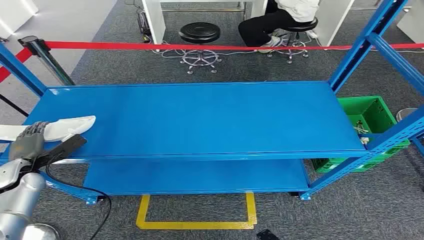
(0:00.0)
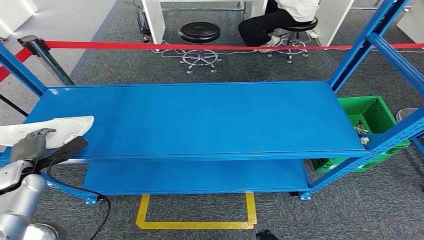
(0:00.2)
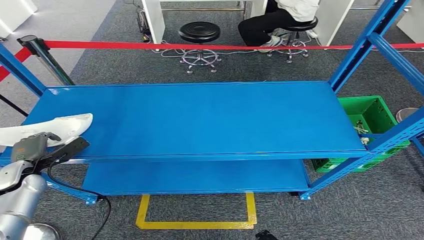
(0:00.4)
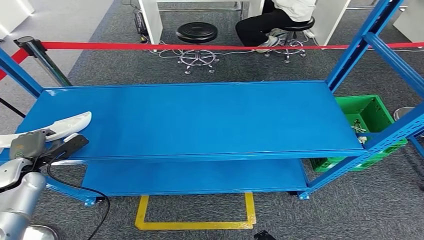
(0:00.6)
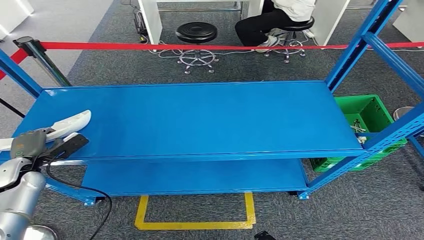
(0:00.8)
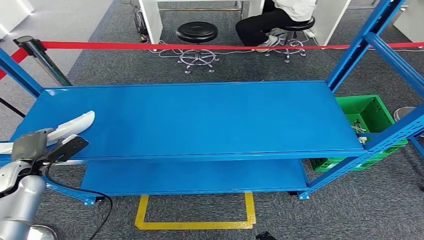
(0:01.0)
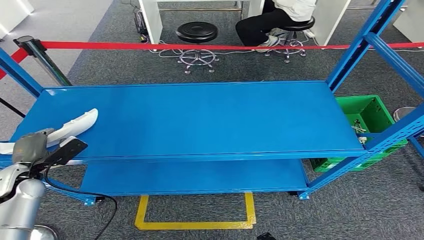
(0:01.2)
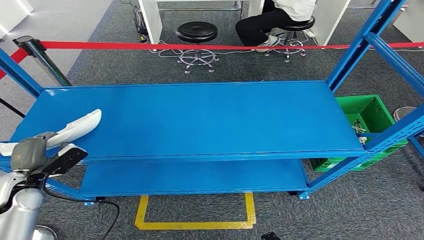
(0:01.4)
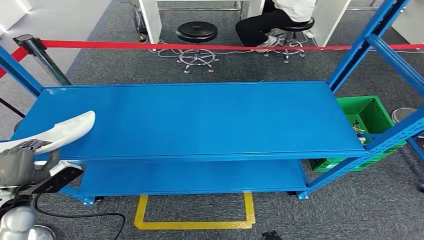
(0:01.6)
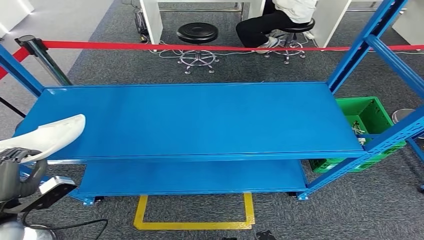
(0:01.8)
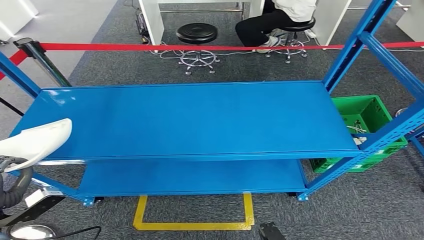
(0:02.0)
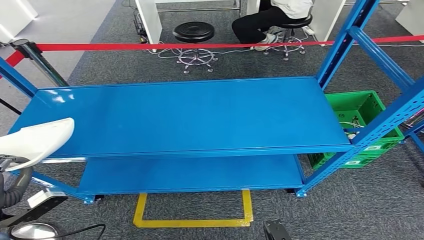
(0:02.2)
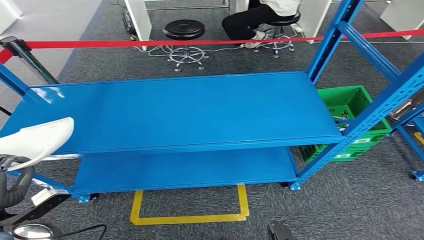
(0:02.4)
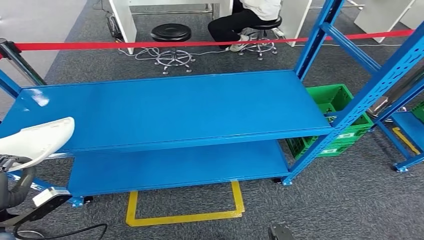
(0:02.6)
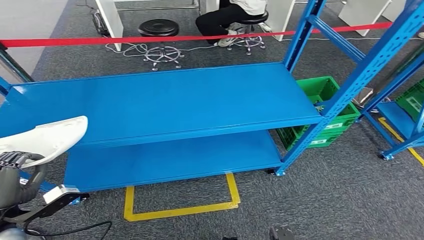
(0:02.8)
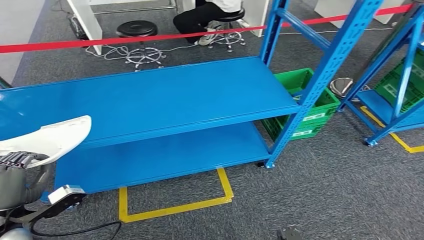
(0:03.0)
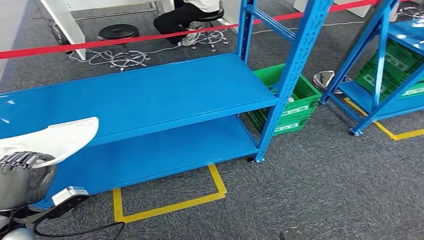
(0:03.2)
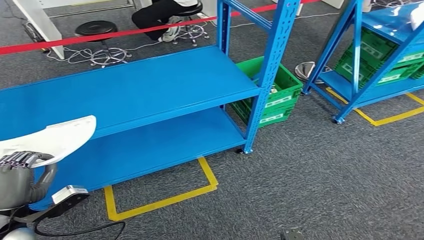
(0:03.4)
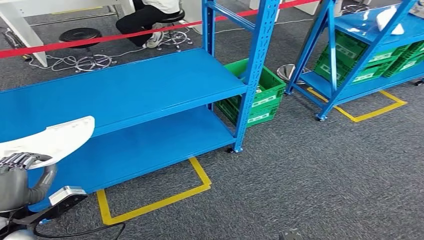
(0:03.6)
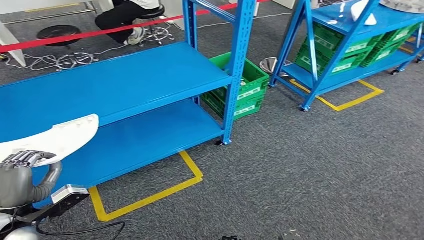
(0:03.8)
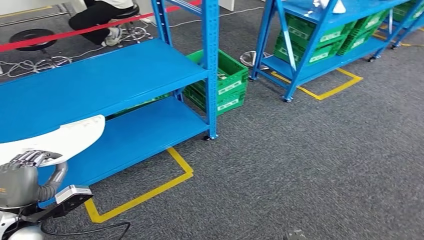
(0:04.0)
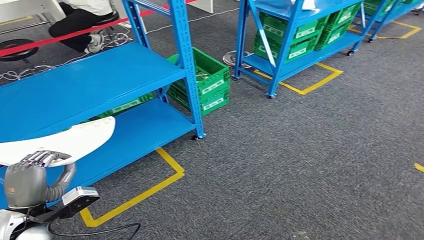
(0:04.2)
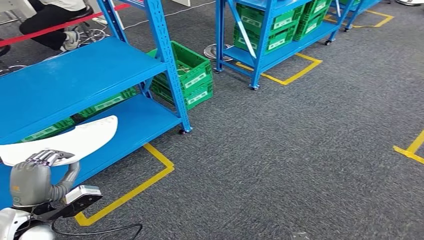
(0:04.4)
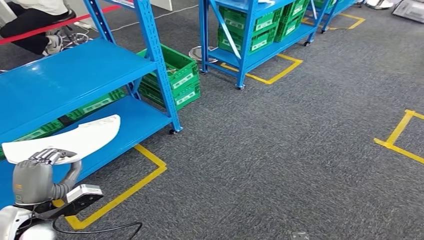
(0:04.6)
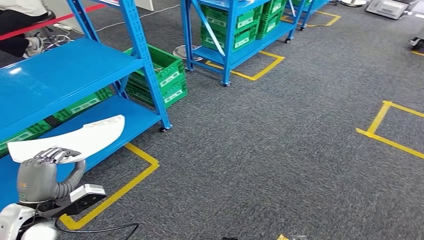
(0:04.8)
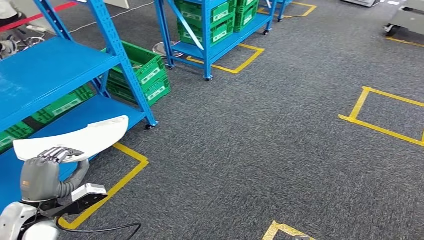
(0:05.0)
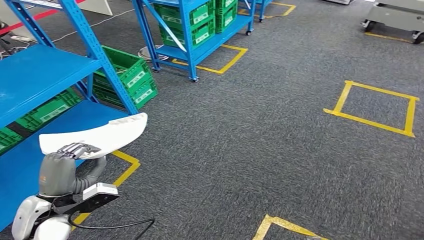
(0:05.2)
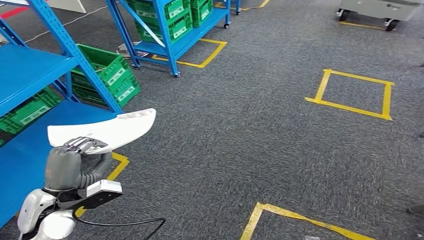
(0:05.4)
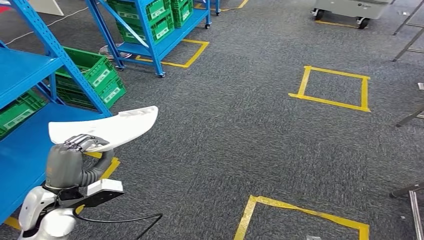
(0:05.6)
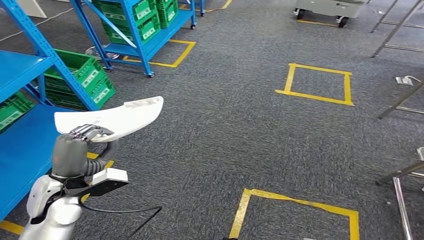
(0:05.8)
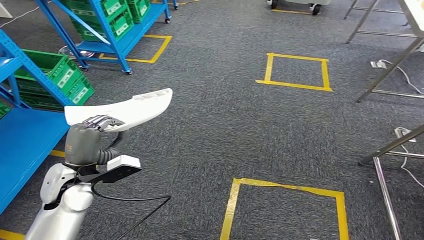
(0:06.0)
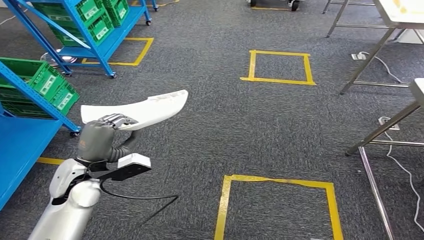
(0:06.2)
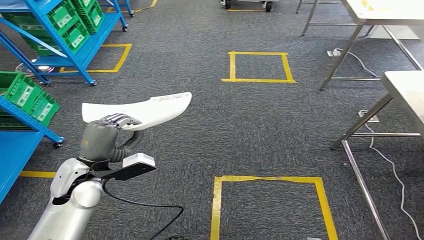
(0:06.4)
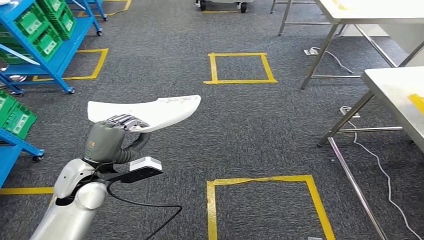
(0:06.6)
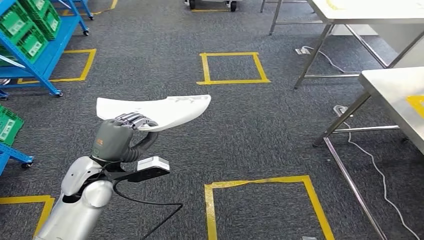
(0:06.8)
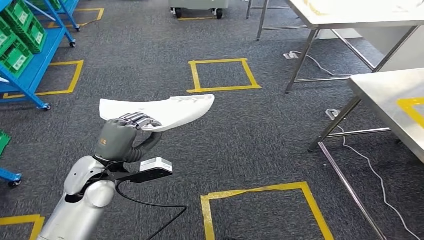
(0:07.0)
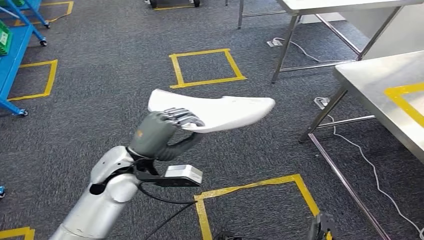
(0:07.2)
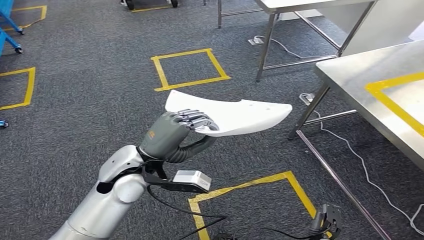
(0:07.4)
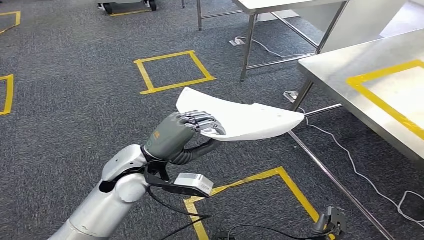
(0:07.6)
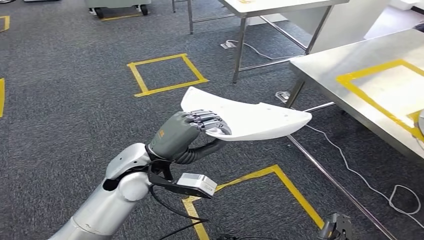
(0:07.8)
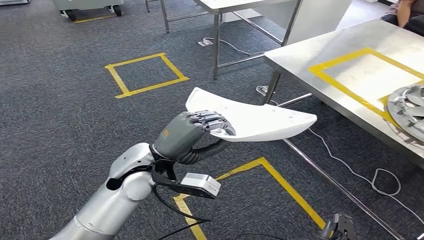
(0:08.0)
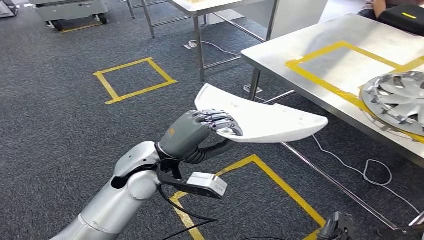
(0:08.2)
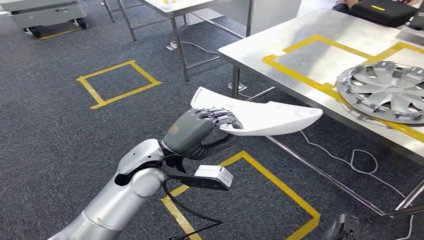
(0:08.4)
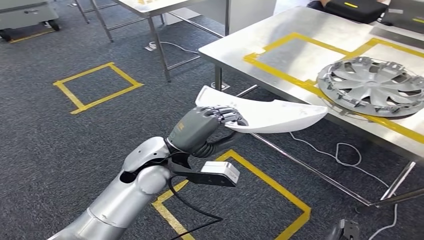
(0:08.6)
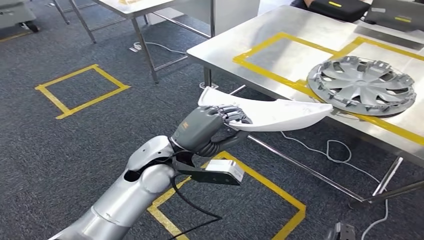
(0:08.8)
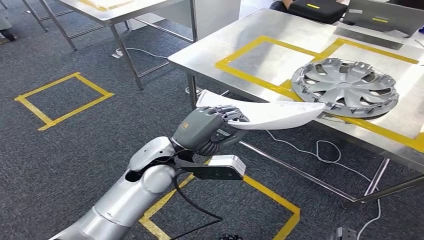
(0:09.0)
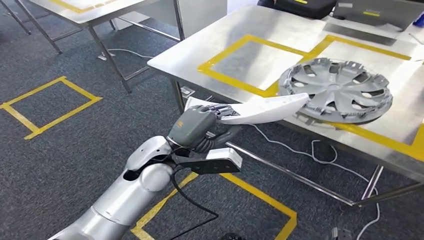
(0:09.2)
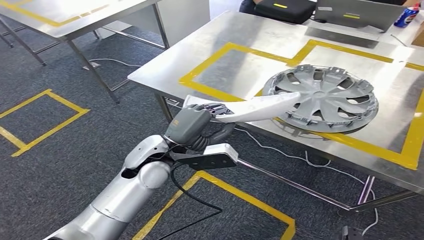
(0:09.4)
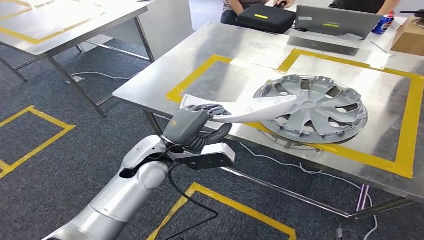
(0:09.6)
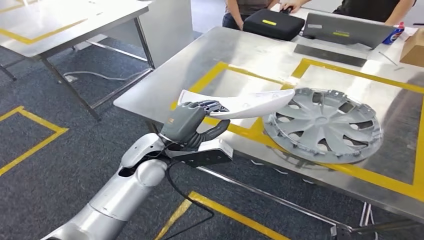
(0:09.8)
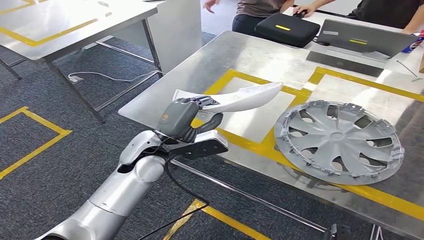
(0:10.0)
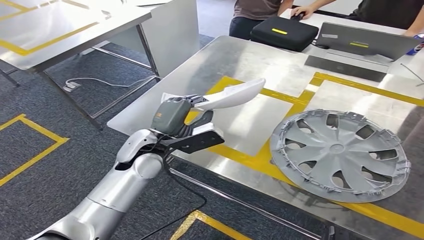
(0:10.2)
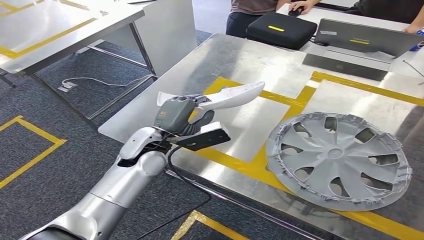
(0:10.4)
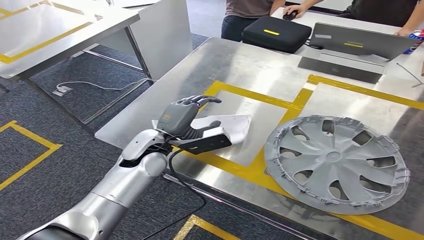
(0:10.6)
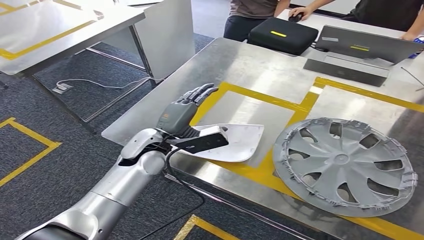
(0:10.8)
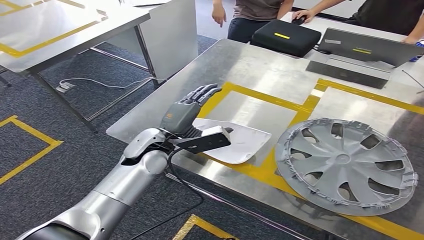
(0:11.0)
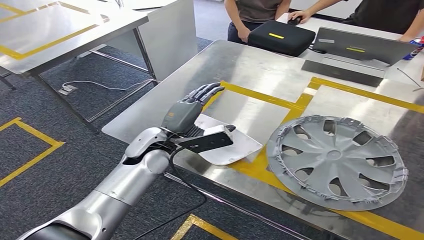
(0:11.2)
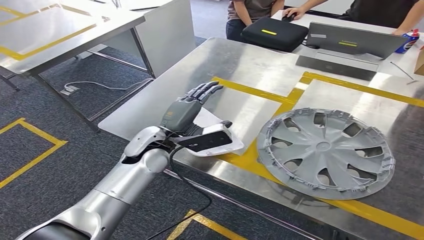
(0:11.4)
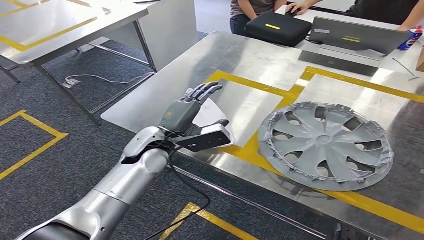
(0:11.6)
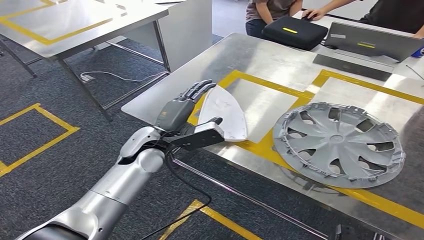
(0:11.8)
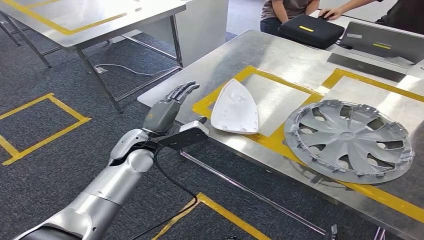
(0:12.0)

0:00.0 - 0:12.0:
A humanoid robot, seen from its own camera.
Step, 0:00.0 - 0:03.2: Pick up the small component from the shelf.
Step, 0:03.4 - 0:09.8: Move the small component to the workbench.

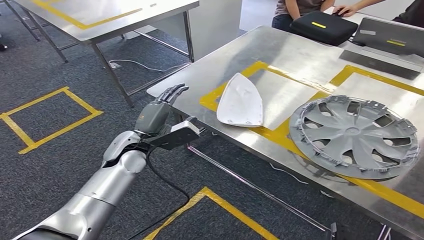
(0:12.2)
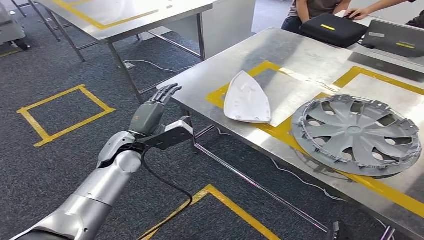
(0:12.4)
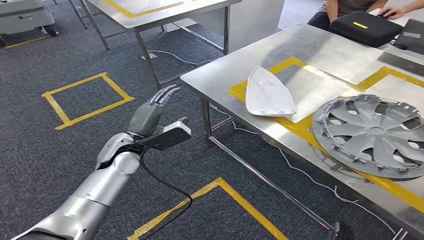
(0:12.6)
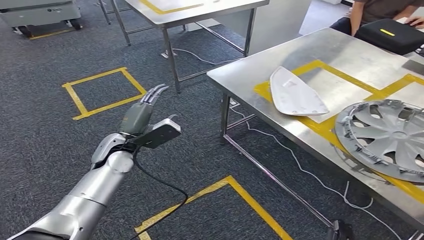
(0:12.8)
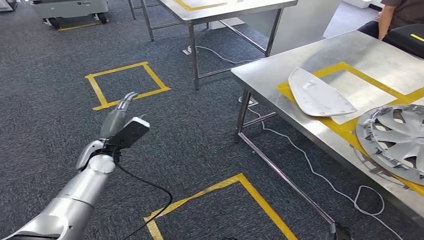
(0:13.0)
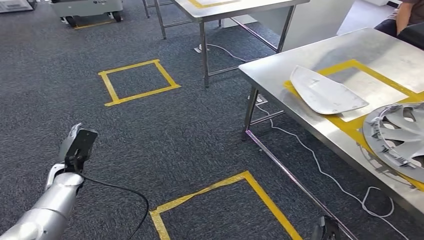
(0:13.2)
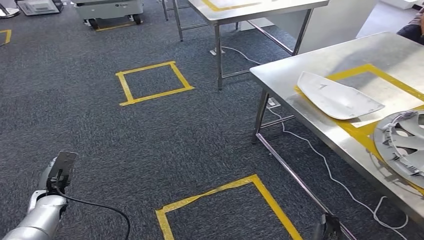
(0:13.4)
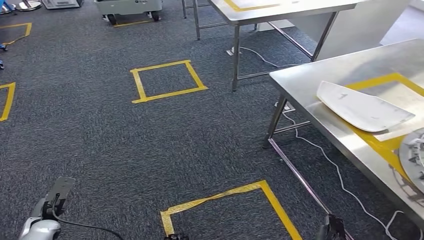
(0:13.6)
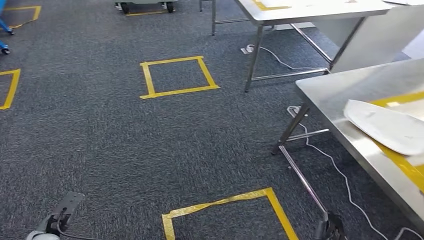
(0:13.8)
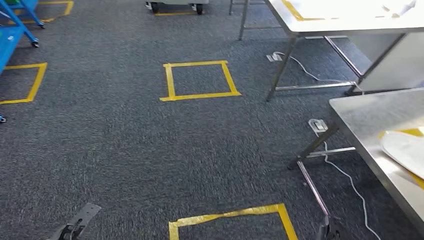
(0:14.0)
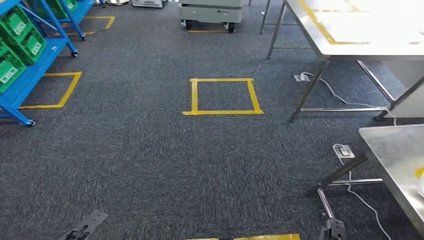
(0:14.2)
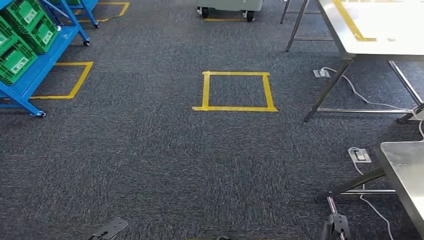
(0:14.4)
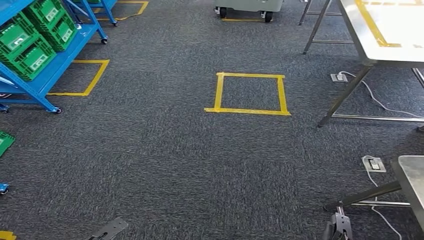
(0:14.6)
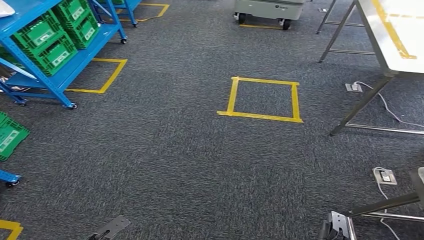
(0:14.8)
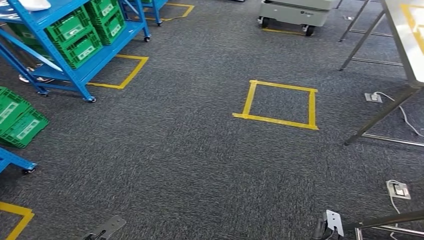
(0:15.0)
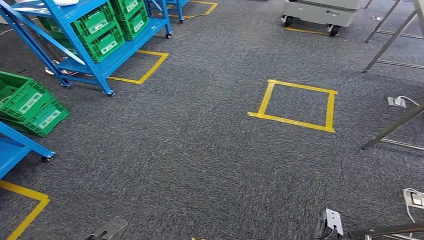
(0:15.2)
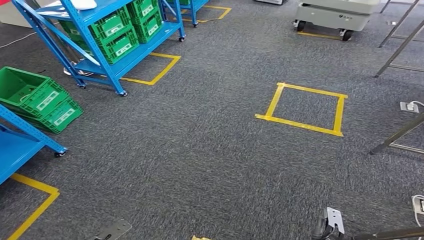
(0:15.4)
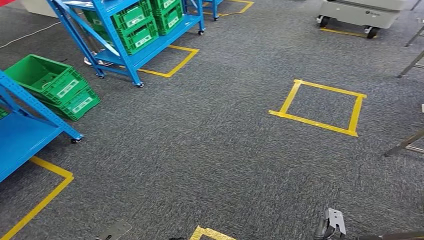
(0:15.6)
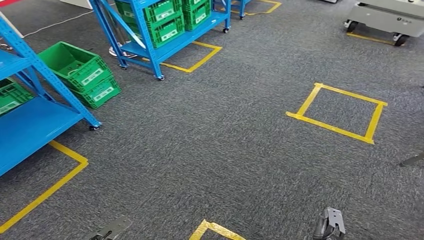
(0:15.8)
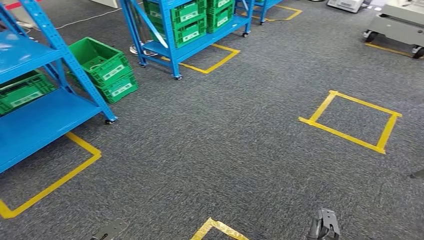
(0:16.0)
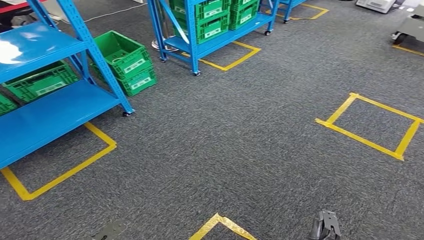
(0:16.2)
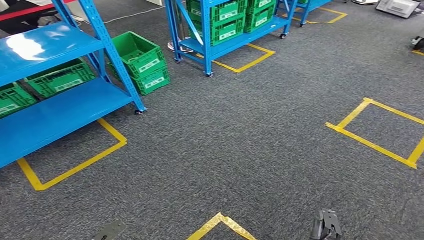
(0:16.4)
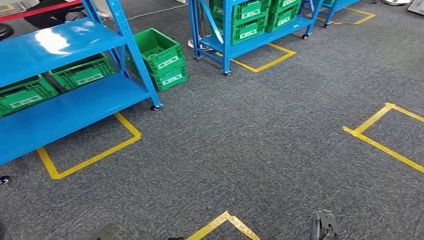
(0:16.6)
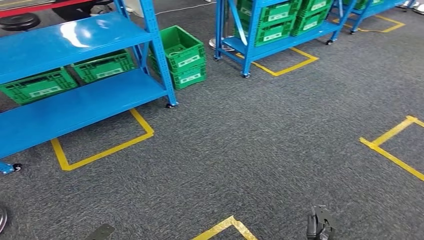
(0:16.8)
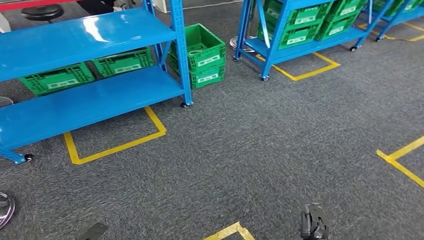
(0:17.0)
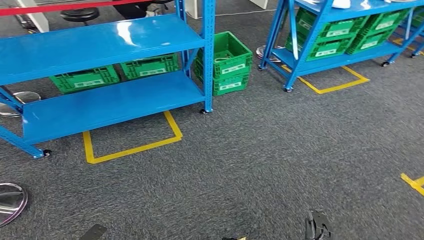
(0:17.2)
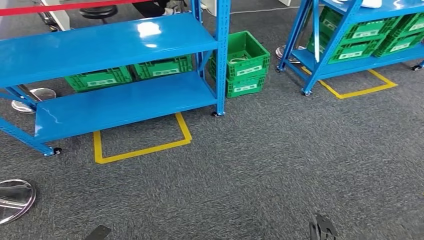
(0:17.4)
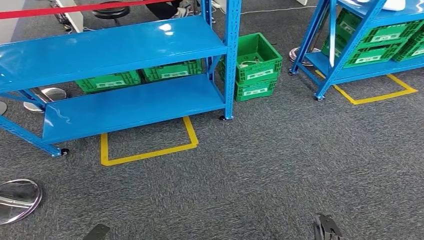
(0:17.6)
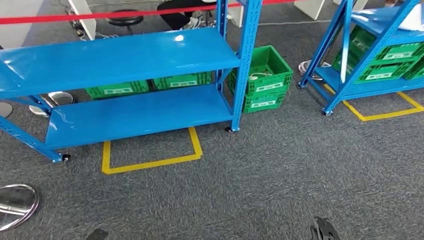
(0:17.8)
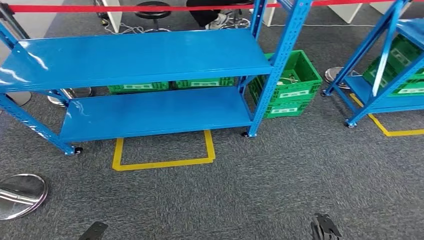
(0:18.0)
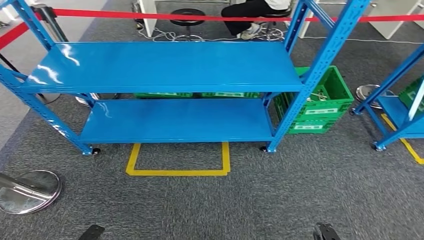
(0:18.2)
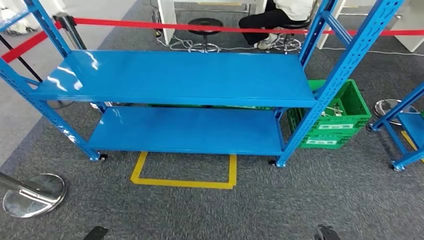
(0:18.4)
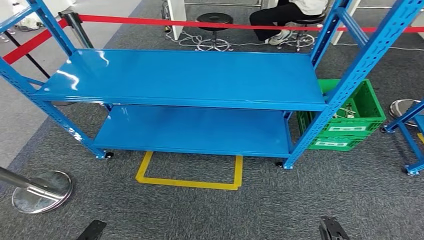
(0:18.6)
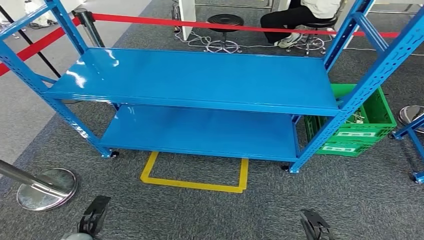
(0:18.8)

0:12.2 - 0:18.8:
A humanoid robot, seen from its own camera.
Step, 0:13.2 - 0:18.8: Return to the initial position at the workbench.
